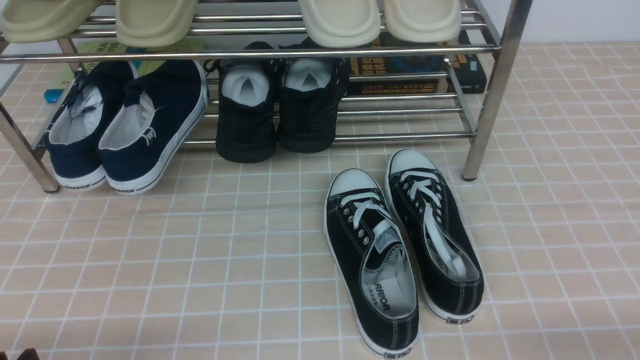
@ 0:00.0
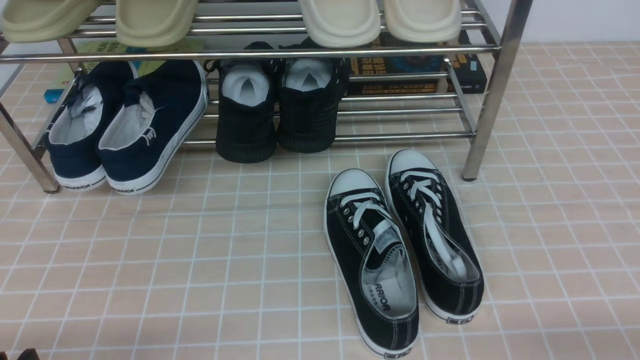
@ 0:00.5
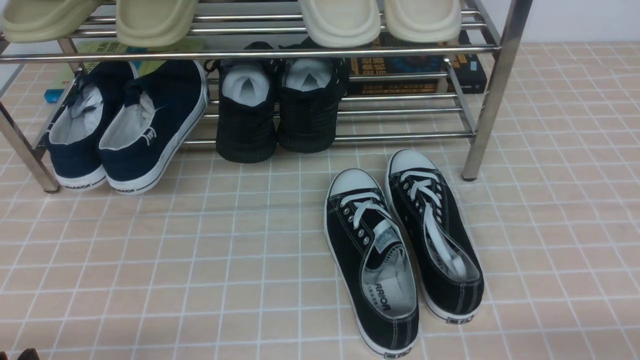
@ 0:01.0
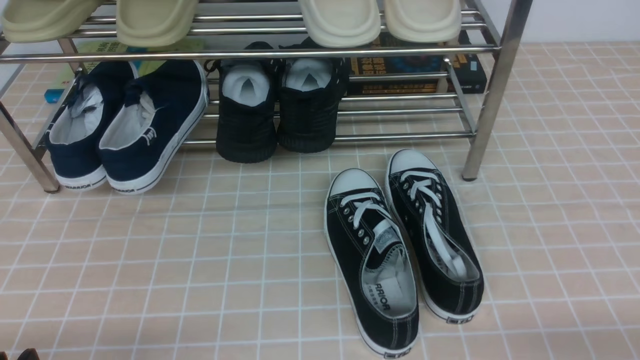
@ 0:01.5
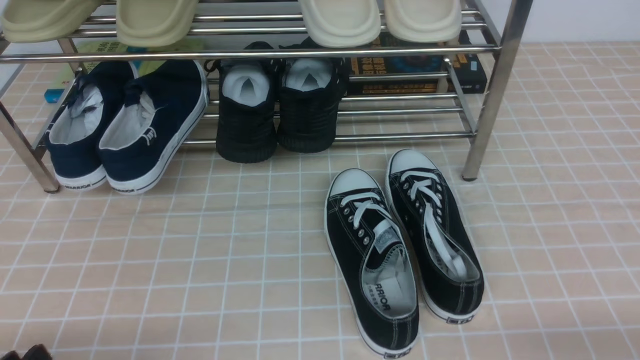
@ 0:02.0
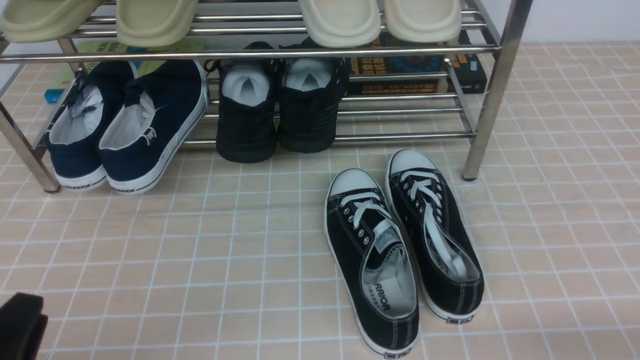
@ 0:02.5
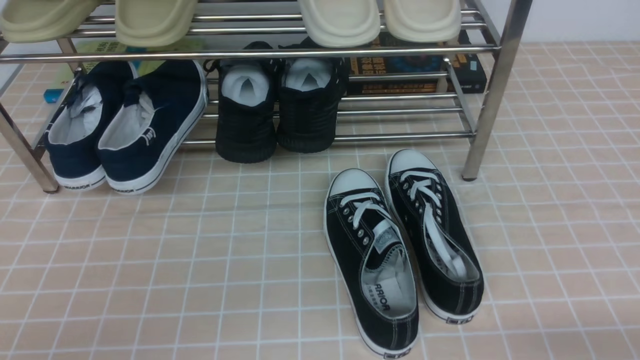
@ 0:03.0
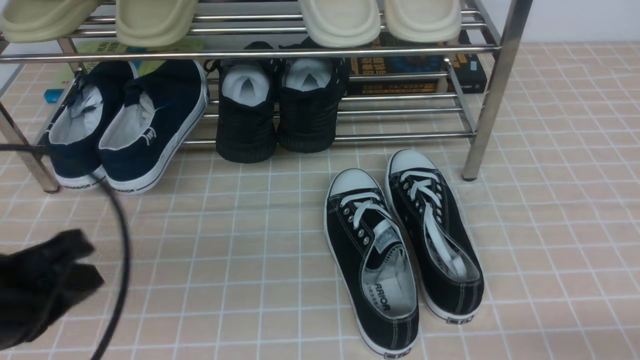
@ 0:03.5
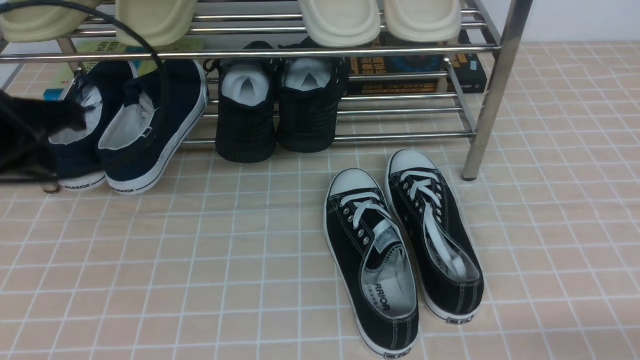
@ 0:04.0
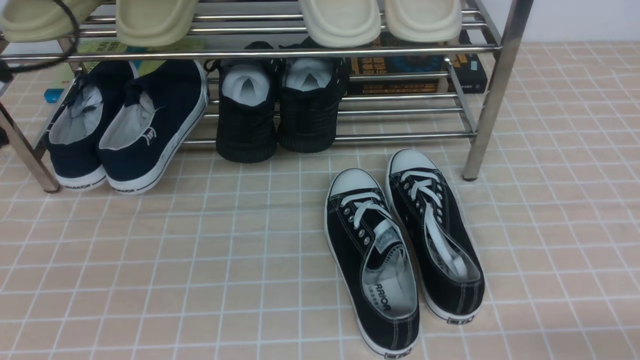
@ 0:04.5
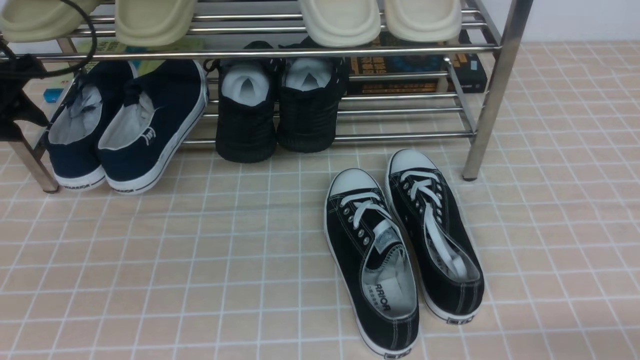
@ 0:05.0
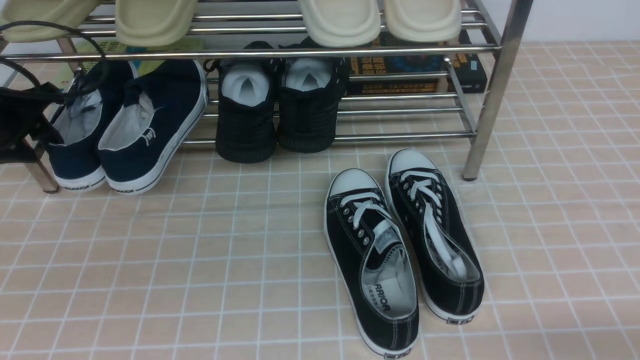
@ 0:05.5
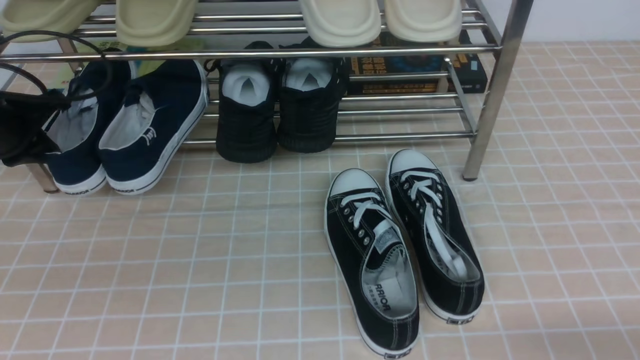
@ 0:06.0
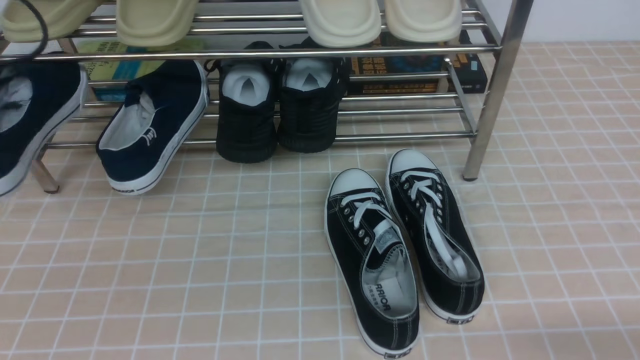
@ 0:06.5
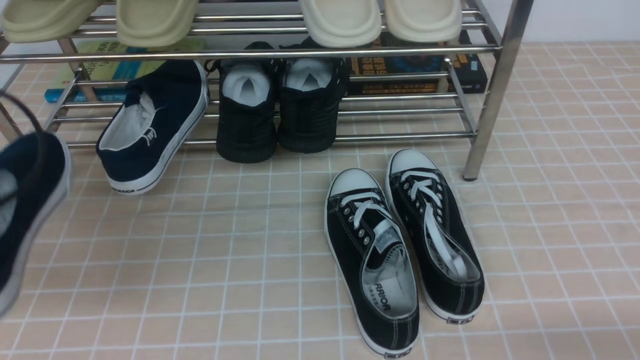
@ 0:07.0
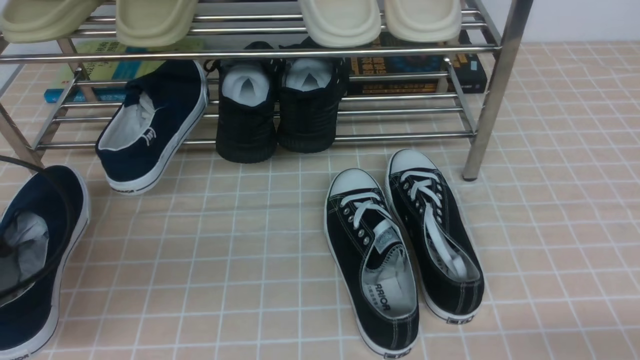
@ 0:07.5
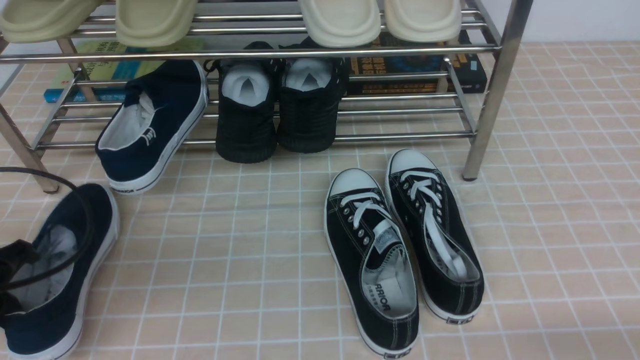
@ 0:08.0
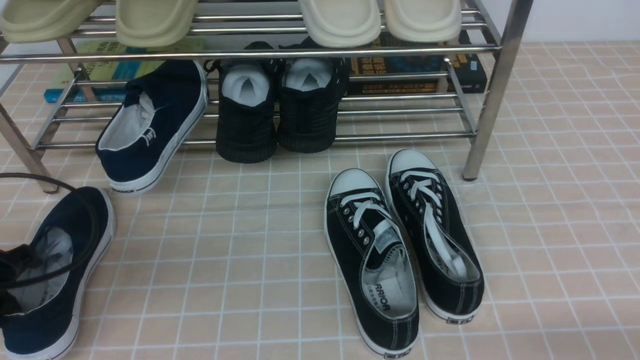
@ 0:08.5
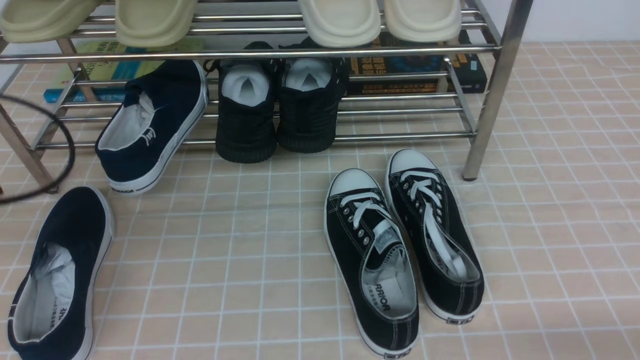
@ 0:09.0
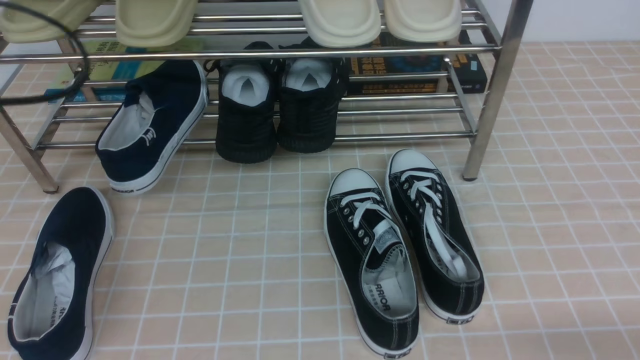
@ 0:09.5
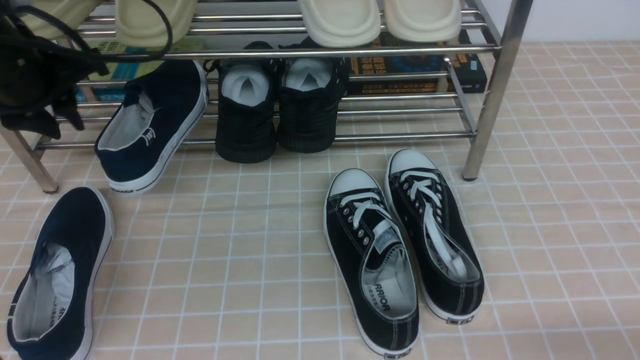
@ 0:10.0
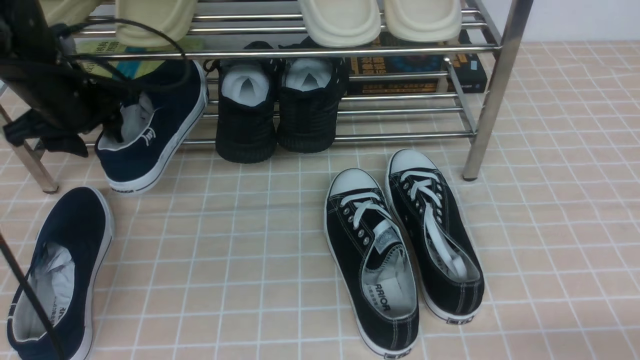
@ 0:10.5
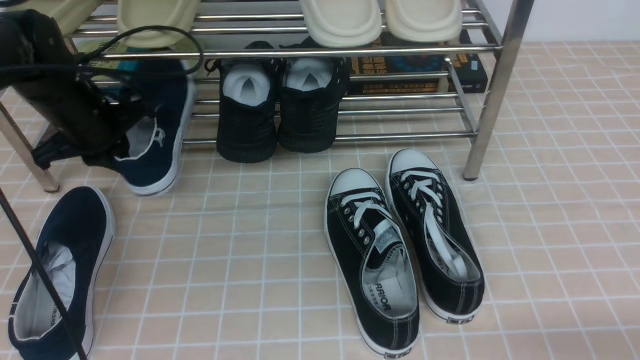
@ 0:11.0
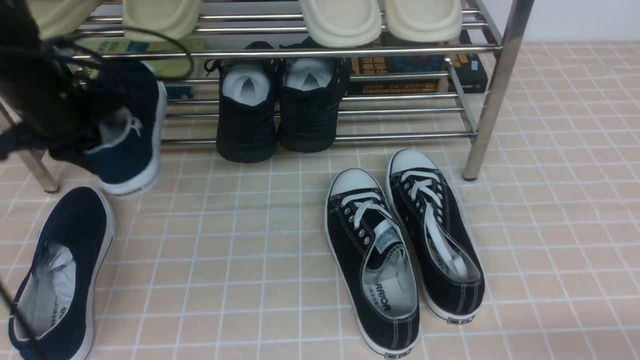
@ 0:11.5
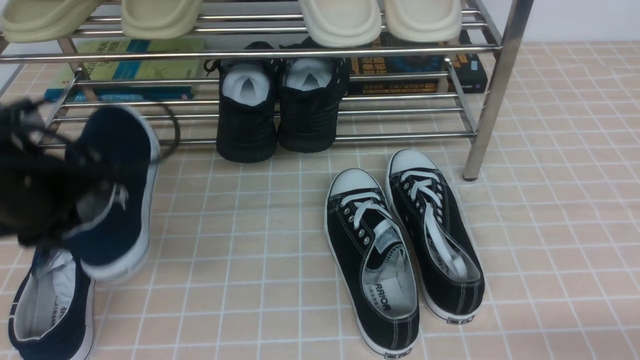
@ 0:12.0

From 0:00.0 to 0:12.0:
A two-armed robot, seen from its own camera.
Step, from 0:00.0 to 0:05.5: use the left arm to clamp a shoe on the left side of the shoe rack.
Step, from 0:06.0 to 0:08.5: Use your left arm to remove the clamped shoe from the shoe rack and put it down.
Step, from 0:09.0 to 0:10.5: use the left arm to clamp a shoe on the left side of the shoe rack.
From 0:02.0 to 0:04.0: The left gripper shifts about 25 cm forward and upward, and closes its fingers.
From 0:04.0 to 0:06.0: The left gripper moves forward, to the left and downward, about 20 cm, and opens and closes again.
From 0:06.0 to 0:08.0: The left gripper heads backward, covering approximately 20 cm.
From 0:08.0 to 0:10.0: The left gripper shifts approximately 20 cm forward and upward, and opens its fingers.
From 0:10.0 to 0:12.0: The left gripper moves backward and downward, about 10 cm, and closes up.

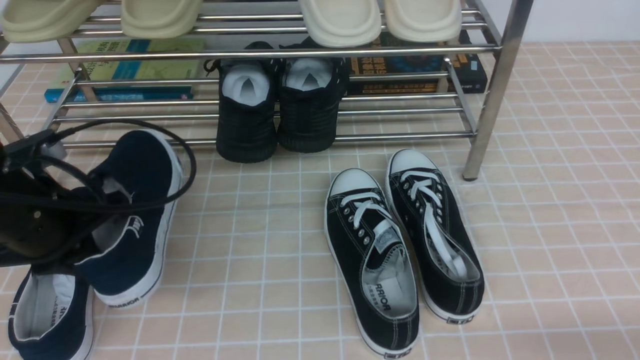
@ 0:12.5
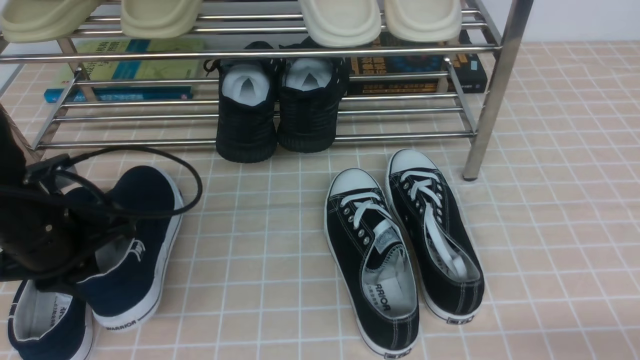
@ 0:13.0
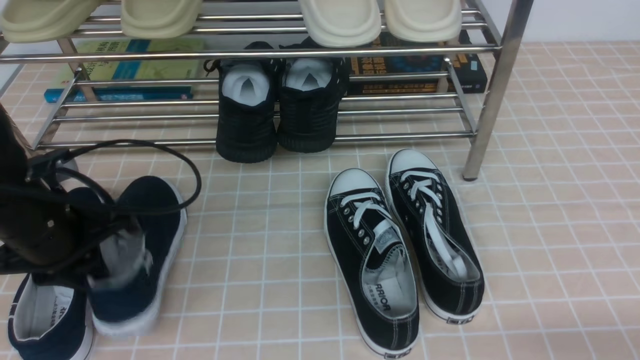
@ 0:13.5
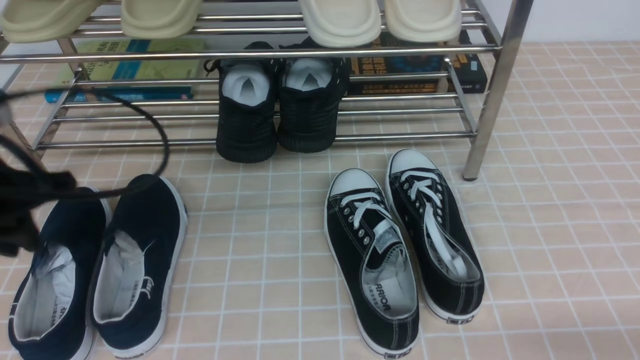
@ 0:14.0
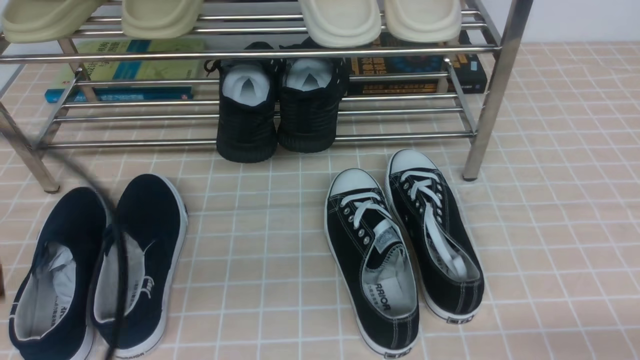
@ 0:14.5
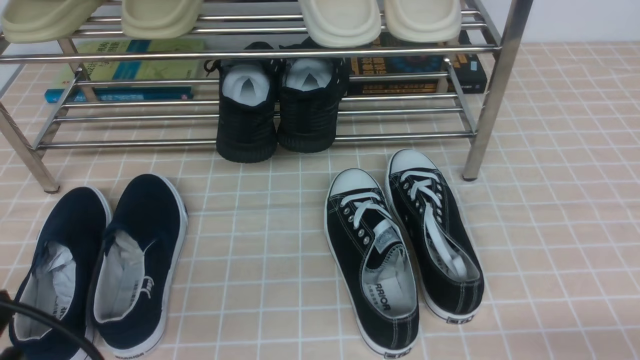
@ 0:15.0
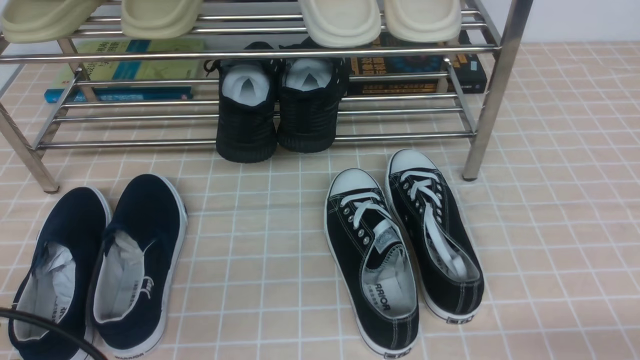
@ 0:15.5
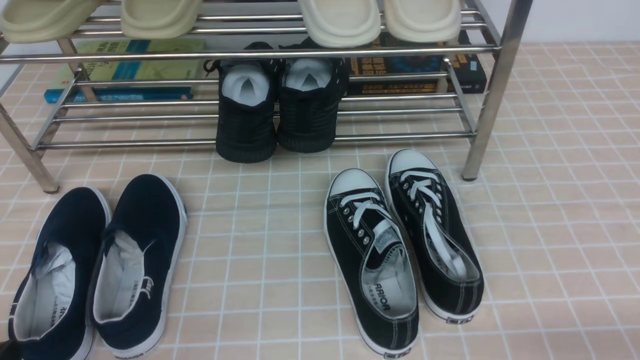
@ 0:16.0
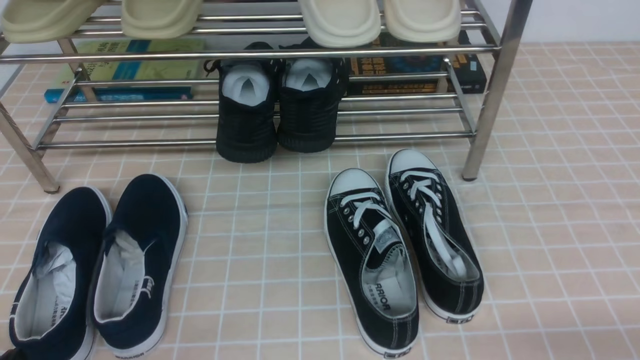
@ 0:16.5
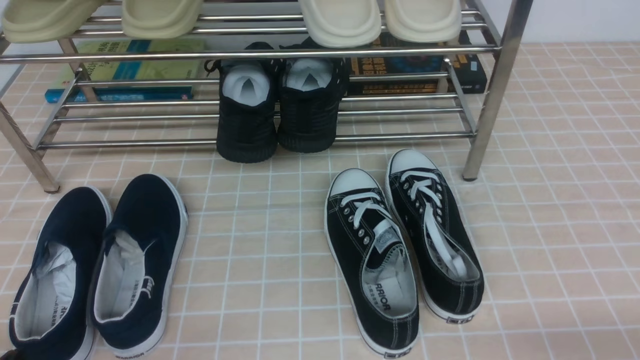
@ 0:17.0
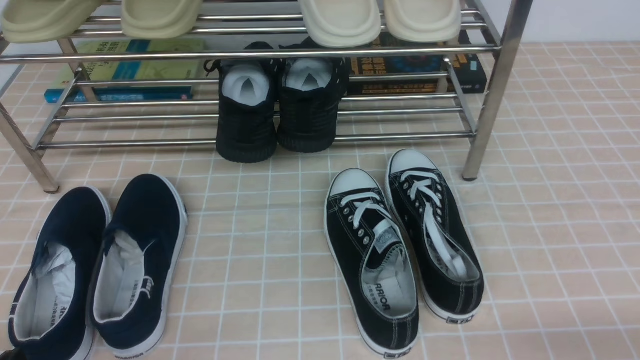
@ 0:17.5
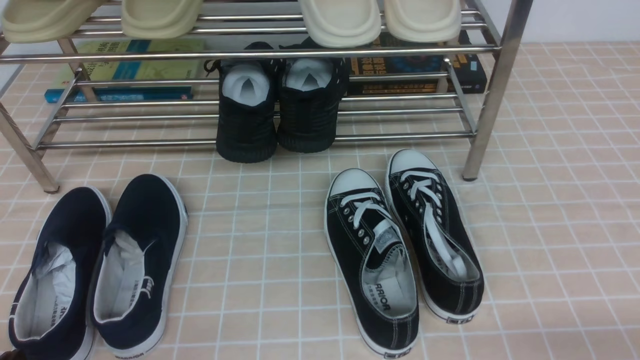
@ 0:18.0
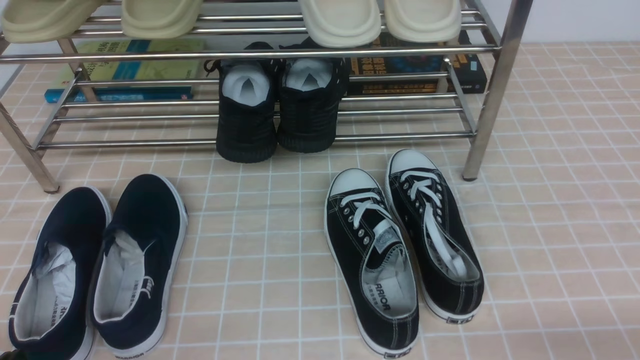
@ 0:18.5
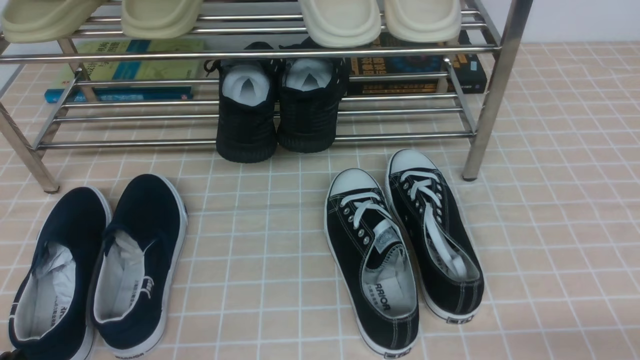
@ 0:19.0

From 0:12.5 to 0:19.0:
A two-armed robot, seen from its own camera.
From 0:12.5 to 0:14.5: The left gripper moves backward and upward, approximately 20 cm, and opens, then closes again.
From 0:14.5 to 0:17.0: The left gripper goes some 15 cm downward.
From 0:17.0 to 0:19.0: The two grippers keep their place.

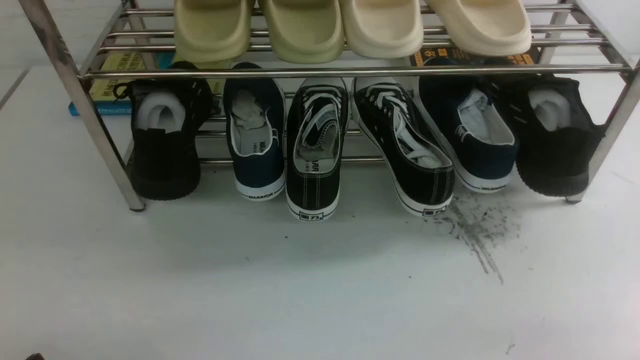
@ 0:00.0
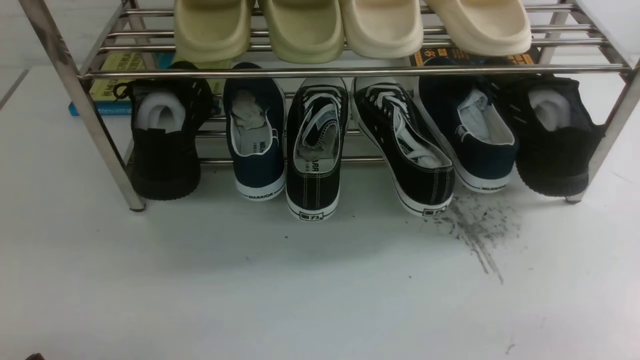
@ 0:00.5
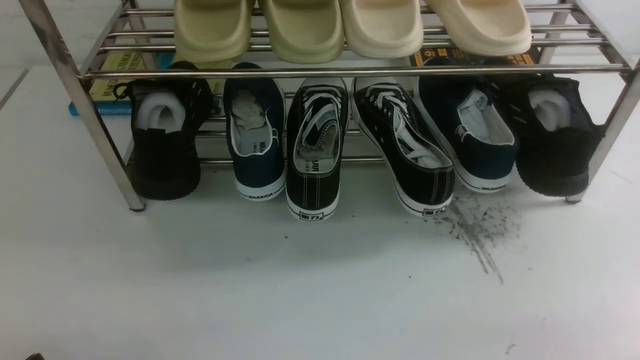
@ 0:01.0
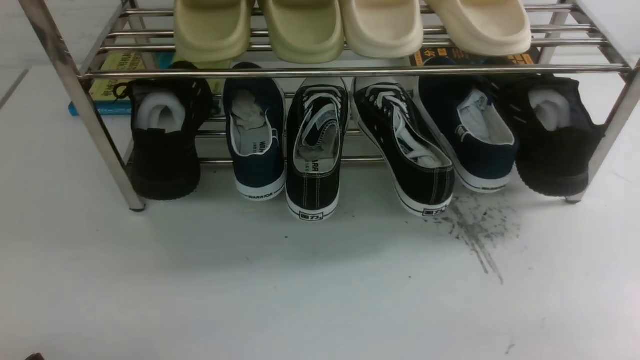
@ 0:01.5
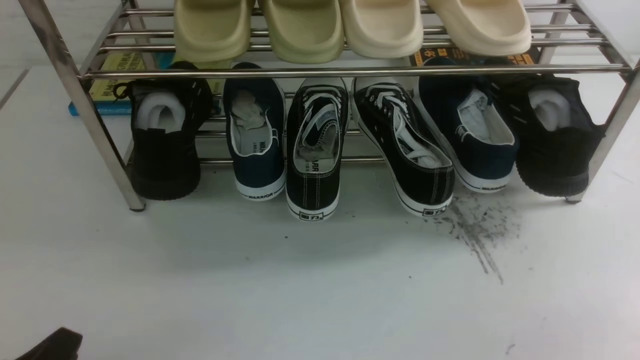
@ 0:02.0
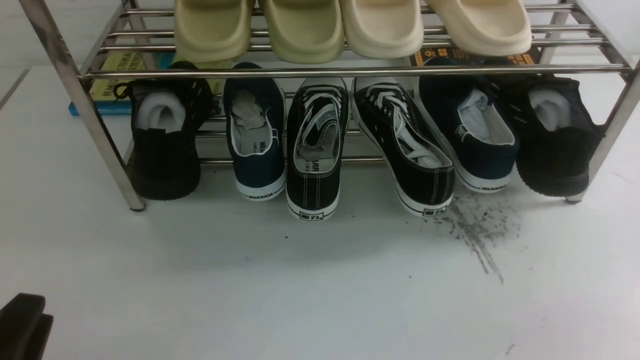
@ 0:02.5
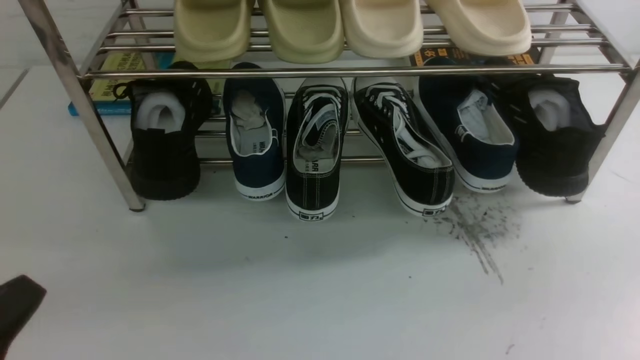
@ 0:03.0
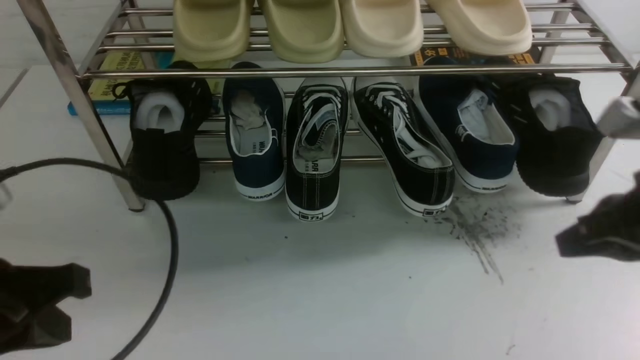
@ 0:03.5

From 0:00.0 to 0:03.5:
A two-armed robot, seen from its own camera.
From 0:02.0 to 0:03.5: The left gripper goes approximately 15 cm upward and forward, and closes its fingers; the right gripper is displaced forward, upward and to the left by roughly 20 cm, and closes up.
